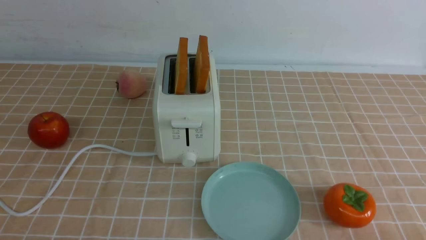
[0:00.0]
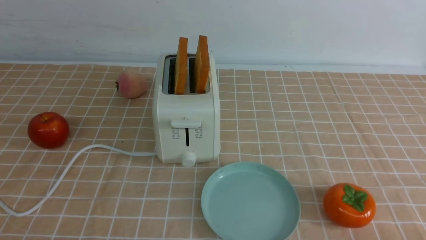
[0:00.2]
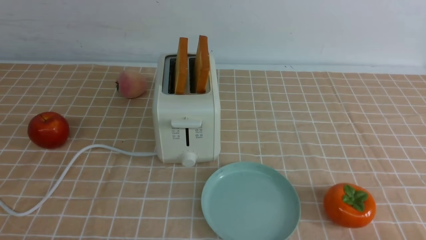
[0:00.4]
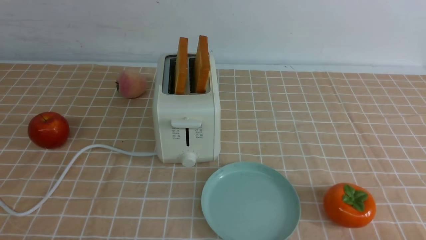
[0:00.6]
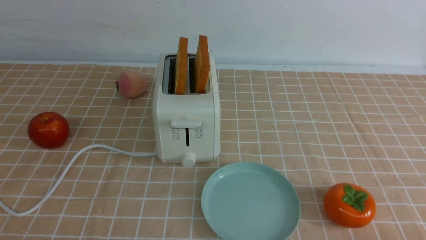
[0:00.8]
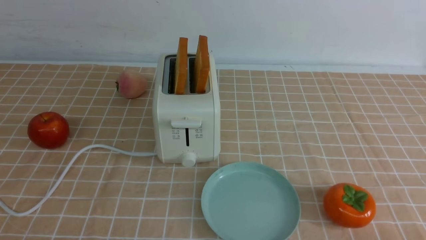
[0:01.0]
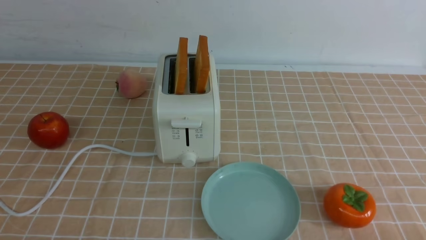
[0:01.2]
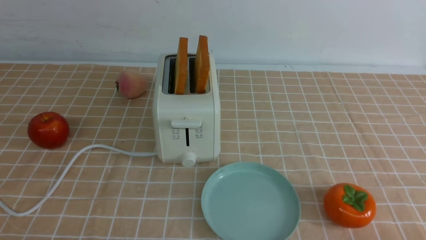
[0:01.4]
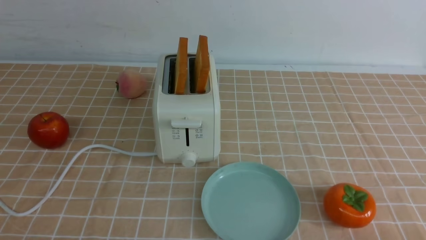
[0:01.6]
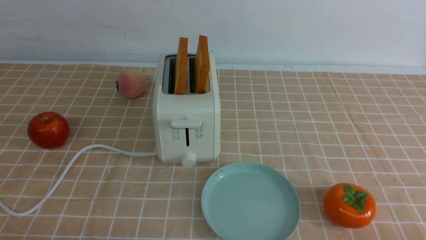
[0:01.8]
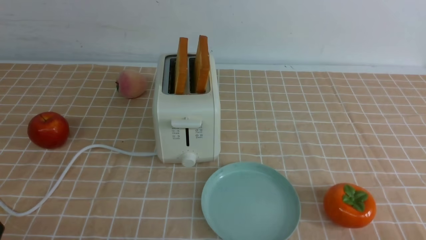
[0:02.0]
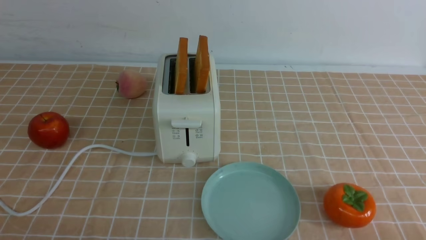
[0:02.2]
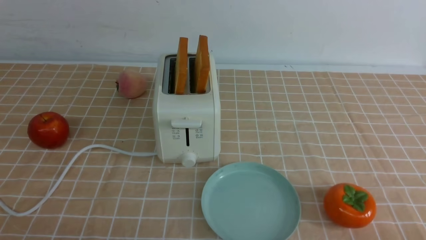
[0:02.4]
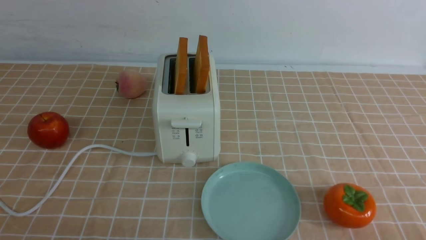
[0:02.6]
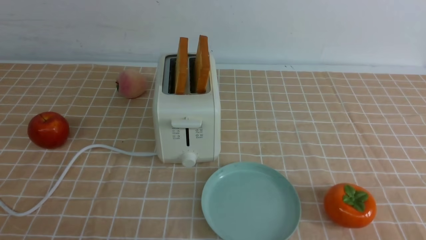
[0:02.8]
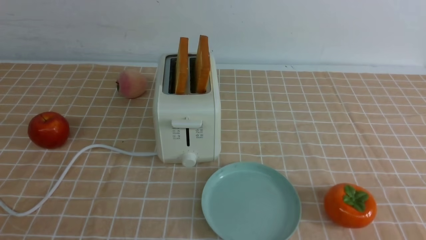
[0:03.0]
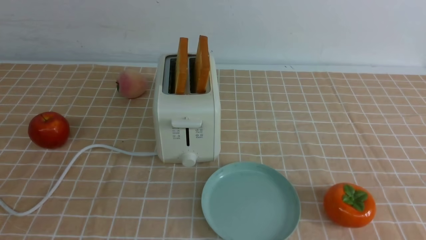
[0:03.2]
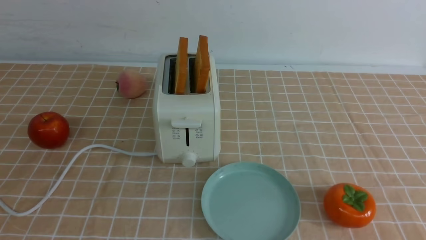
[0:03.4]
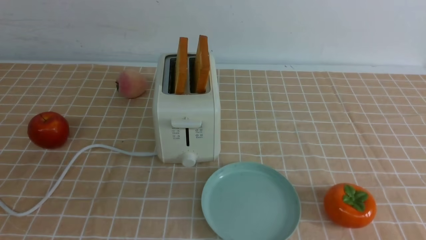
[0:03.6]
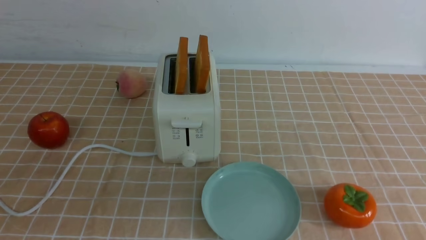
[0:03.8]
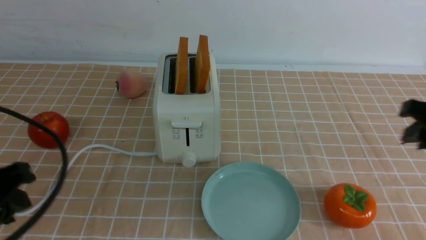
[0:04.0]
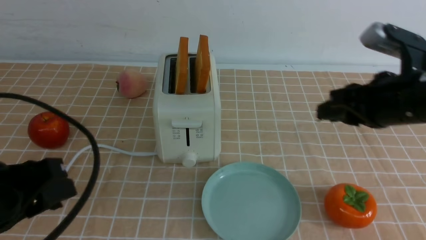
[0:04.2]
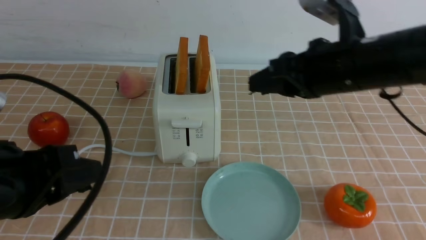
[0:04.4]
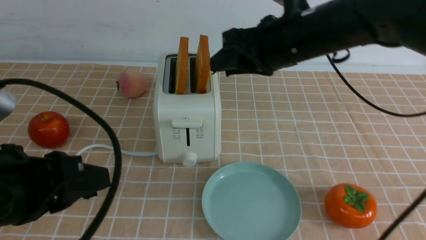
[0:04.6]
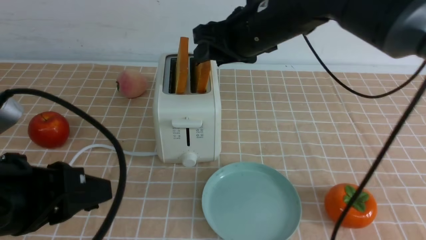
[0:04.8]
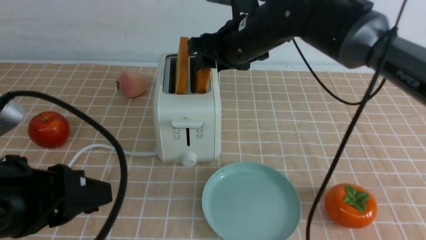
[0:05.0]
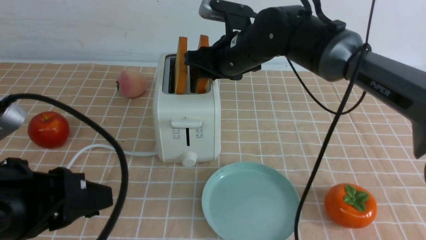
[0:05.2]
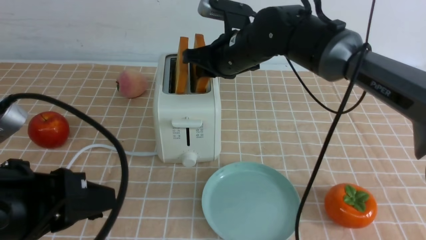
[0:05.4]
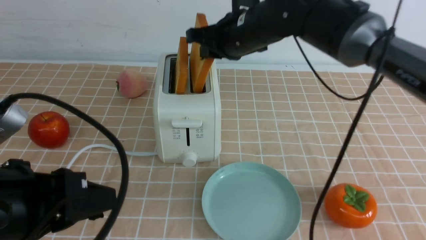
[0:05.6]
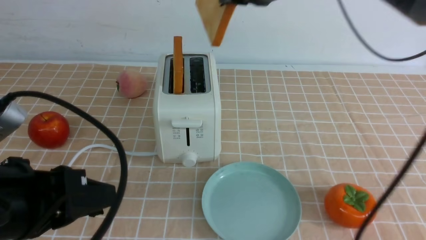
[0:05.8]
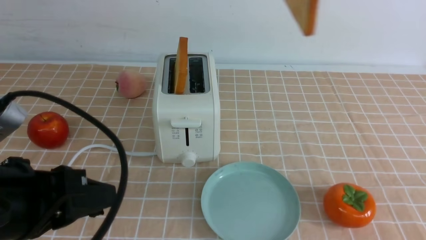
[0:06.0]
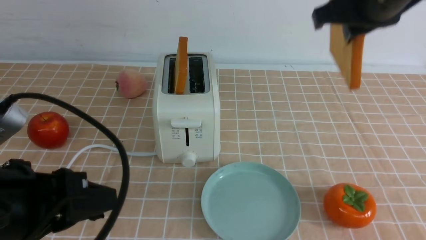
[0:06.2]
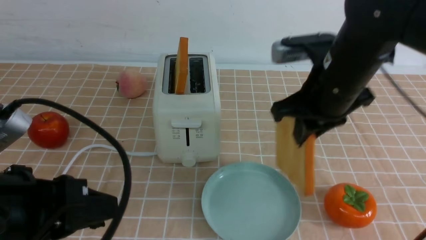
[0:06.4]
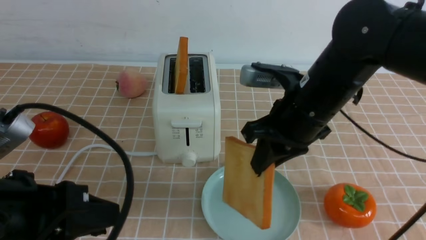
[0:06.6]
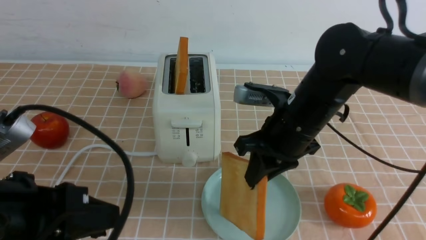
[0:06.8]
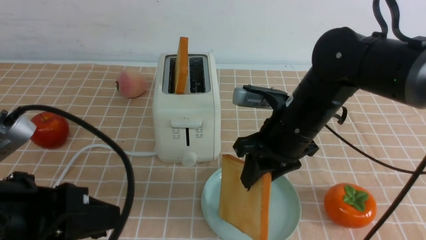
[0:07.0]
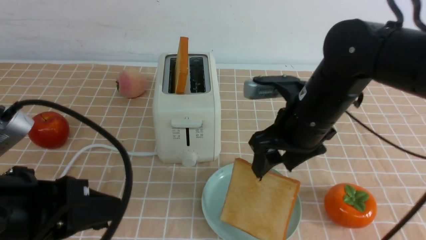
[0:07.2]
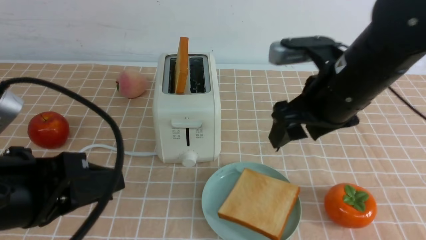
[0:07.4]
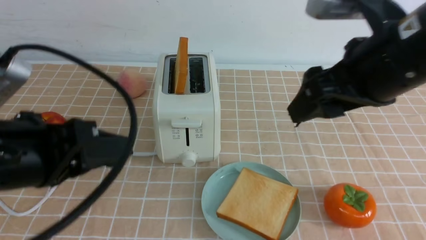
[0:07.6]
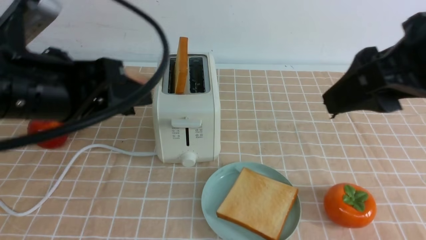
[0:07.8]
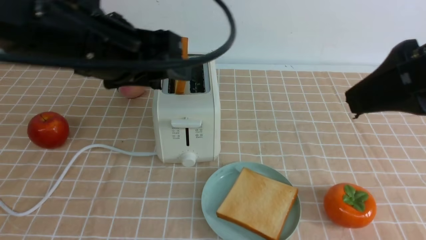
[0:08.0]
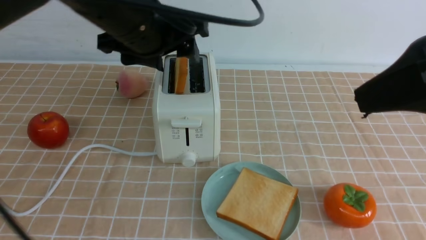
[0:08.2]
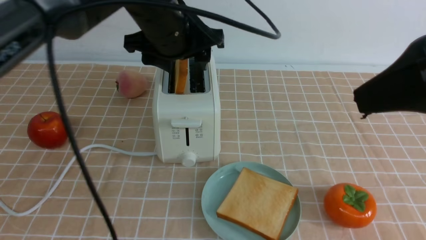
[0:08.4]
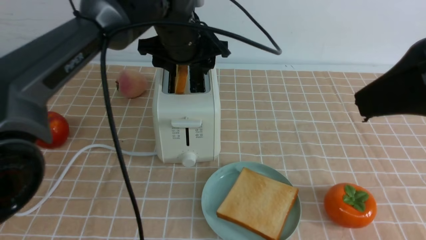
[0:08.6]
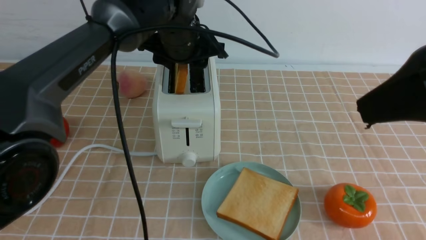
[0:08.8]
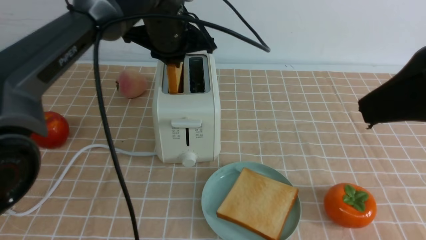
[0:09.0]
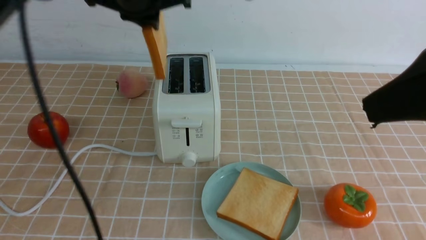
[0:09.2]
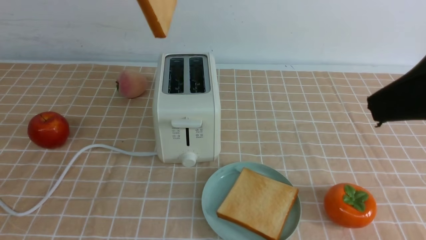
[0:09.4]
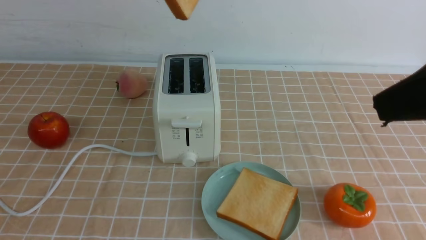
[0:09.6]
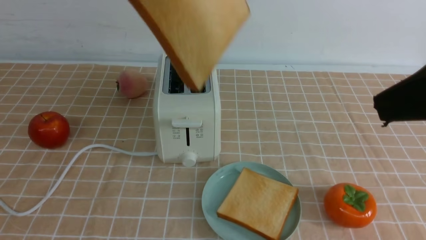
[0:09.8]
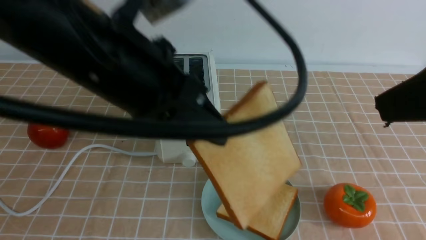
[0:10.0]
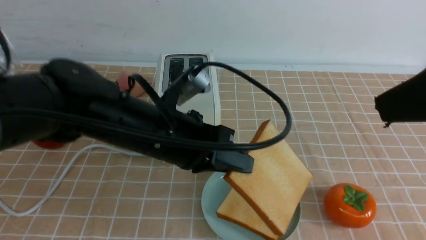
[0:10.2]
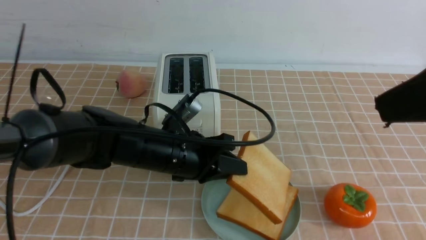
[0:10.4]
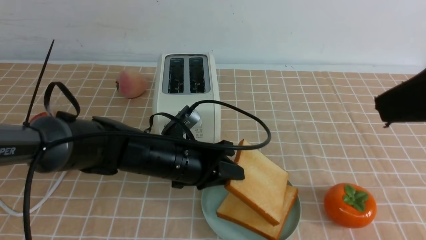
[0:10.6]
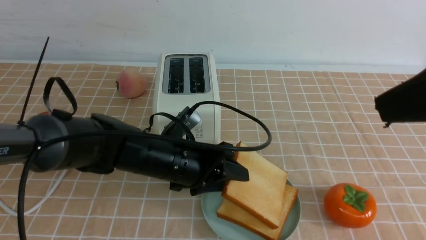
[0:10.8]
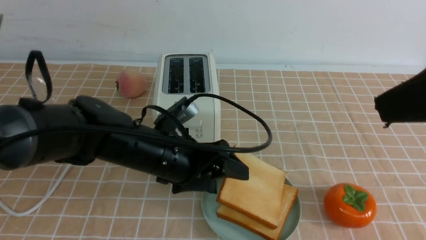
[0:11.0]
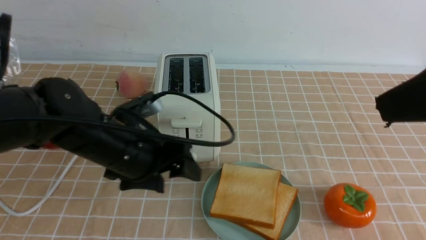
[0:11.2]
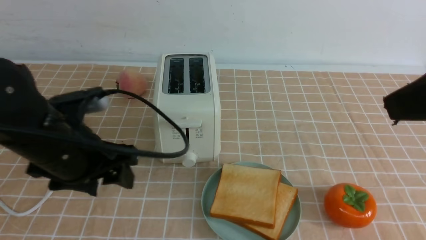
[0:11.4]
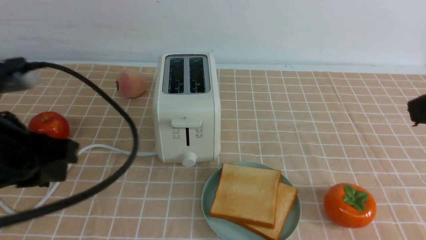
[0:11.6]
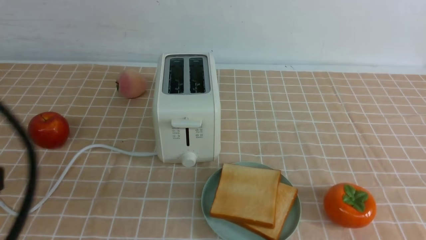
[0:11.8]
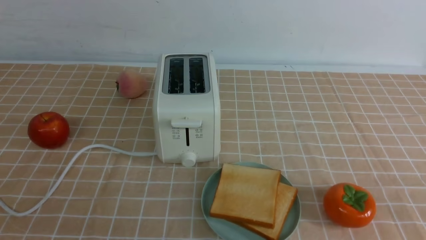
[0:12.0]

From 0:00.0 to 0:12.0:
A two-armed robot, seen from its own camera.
Task of the whole recording: take toasted bread from bread machine on light coffee tablecloth place on plate.
Step, from 0:00.0 to 0:05.6: use the right arm to take out a slice of bread.
Step, from 0:05.8 to 0:07.2: use the right arm to put a slice of bread into the plate.
Step, from 0:07.4 to 0:09.0: use the left arm to take out a slice of bread.
Step, from 0:09.2 to 0:11.0: use the left arm to put a slice of bread into the empty plate.
From 0:00.0 to 0:01.6: Both grippers stay put.
From 0:03.0 to 0:04.4: The left gripper travels forward by roughly 10 cm. Meanwhile the right gripper heads forward and to the left, covering some 30 cm.
From 0:04.4 to 0:06.0: The right gripper shifts roughly 10 cm upward.
From 0:06.0 to 0:07.6: The left gripper ends up roughly 5 cm from where it was. The right gripper travels backward by about 10 cm, travels downward and back again, some 15 cm each way, and opens.
From 0:07.6 to 0:09.0: The left gripper moves forward and to the right, roughly 25 cm, and opens and closes again; the right gripper is displaced backward and upward by approximately 10 cm.
From 0:09.0 to 0:10.4: The left gripper moves downward and backward, approximately 20 cm.
From 0:10.4 to 0:12.0: The right gripper is displaced downward and to the right by roughly 20 cm, and closes its fingers; the left gripper travels backward, to the left and upward by roughly 35 cm, and opens, then closes once more.

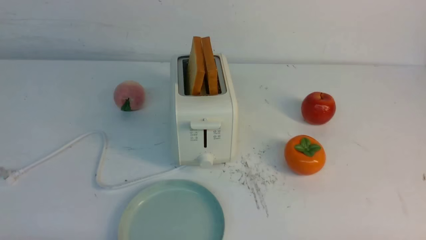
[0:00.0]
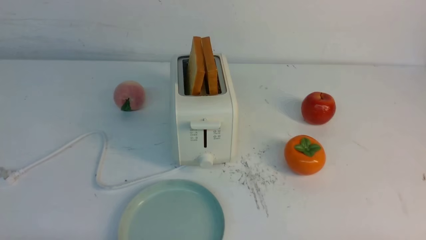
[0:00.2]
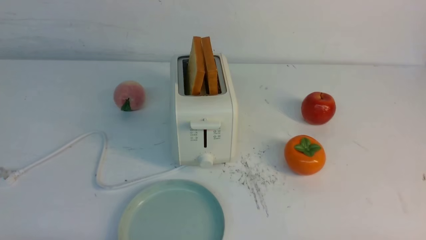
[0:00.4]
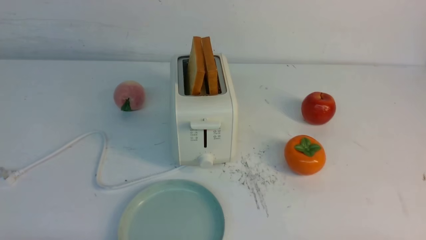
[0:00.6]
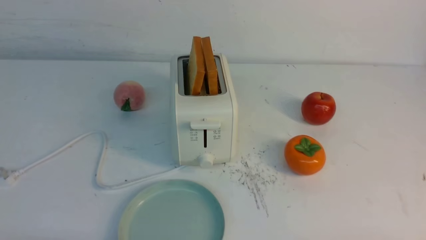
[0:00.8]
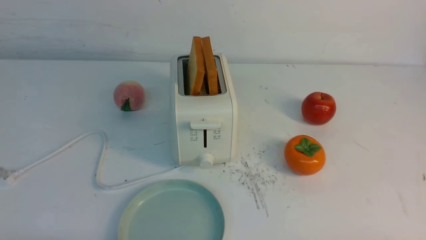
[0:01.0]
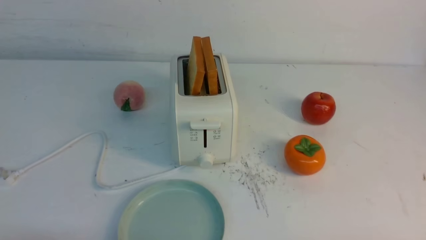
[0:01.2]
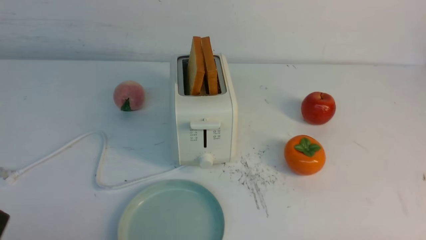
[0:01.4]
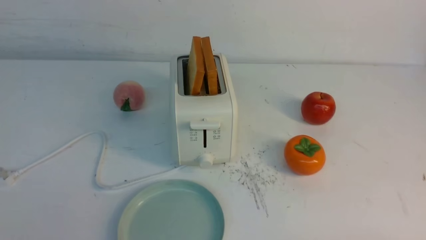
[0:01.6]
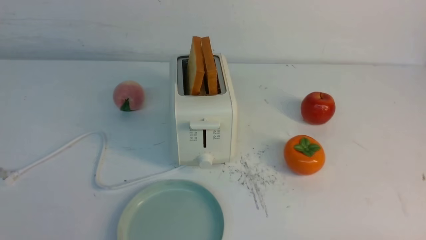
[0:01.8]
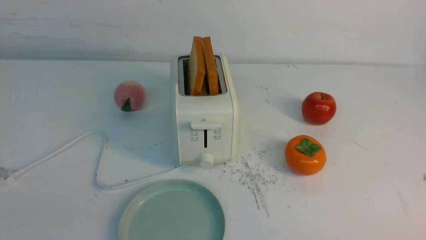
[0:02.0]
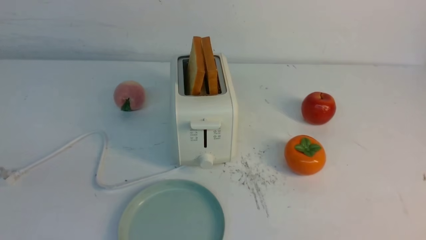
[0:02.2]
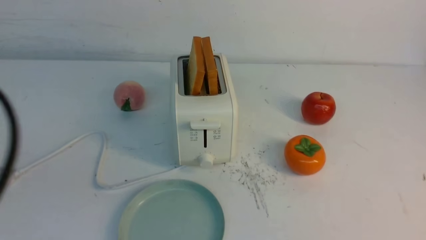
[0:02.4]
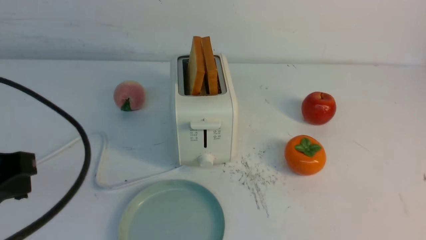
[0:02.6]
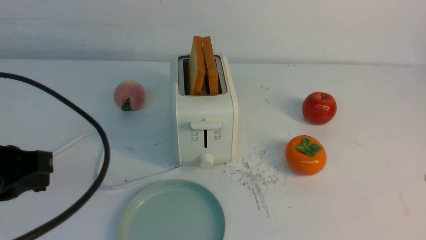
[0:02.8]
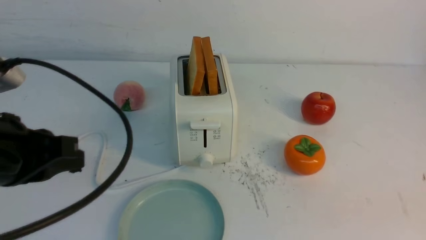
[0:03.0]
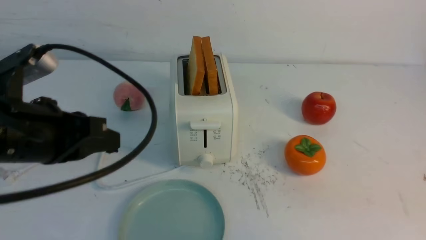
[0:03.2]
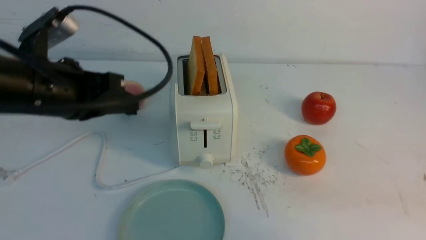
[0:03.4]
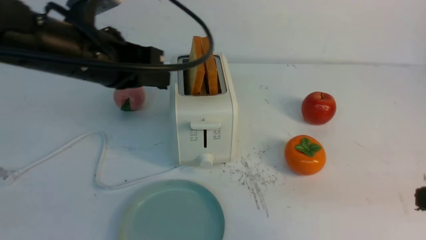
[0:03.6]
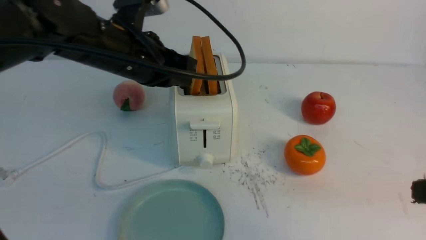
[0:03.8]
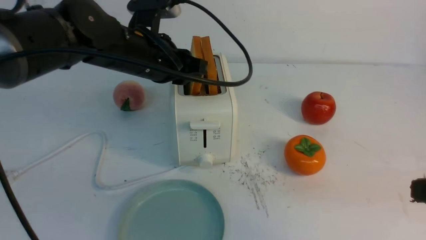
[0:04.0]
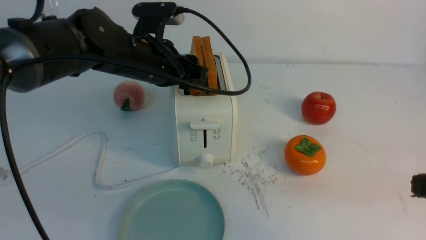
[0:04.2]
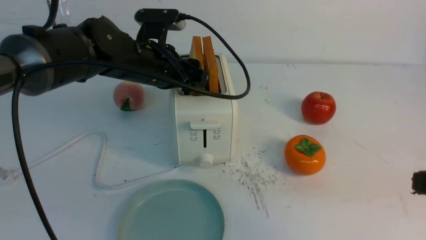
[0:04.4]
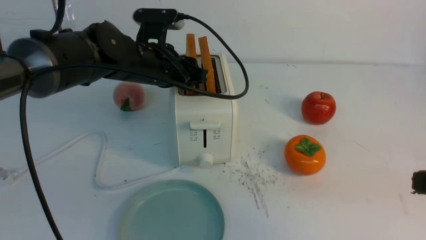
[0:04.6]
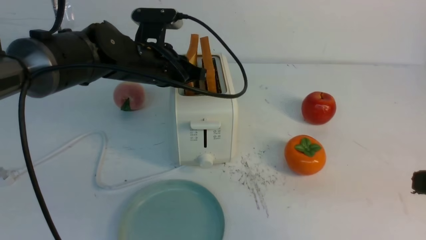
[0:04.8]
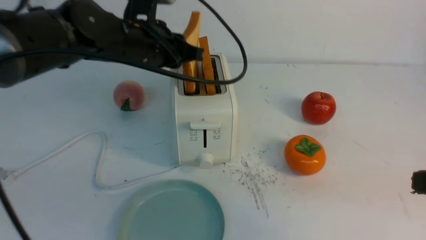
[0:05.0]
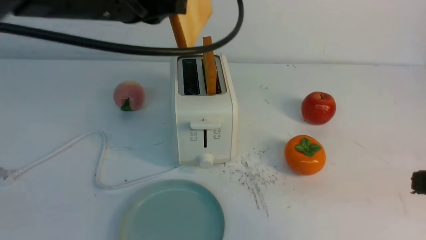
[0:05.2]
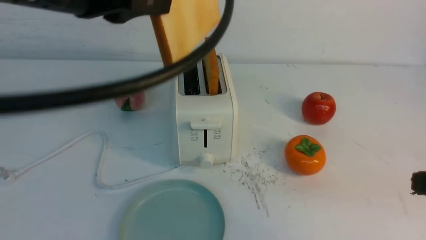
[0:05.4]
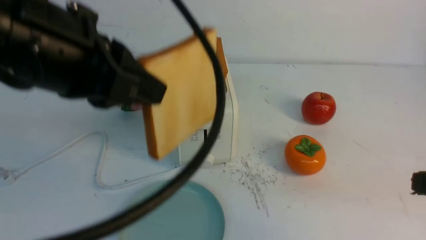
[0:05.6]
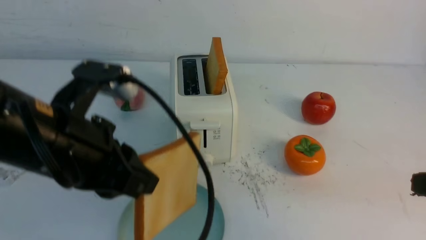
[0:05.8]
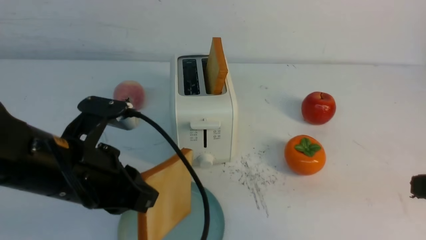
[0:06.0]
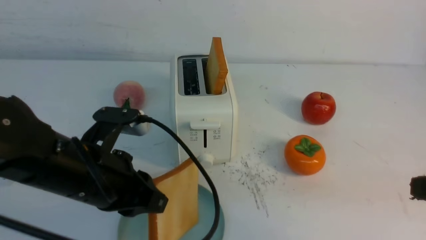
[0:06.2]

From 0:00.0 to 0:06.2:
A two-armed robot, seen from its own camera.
Task of the whole recording: take toasted bread from bread machine on white table place on plate.
Step, from 0:00.0 to 0:05.0: use the left arm to take out a slice of bread.
From 0:01.6 to 0:03.2: The left gripper heads forward, upward and to the right, covering approximately 20 cm, and closes.
From 0:03.2 to 0:04.6: The left gripper is displaced forward and to the right by approximately 20 cm, and opens up.
From 0:04.6 to 0:06.2: The left gripper heads backward, covering some 20 cm, and closes.
